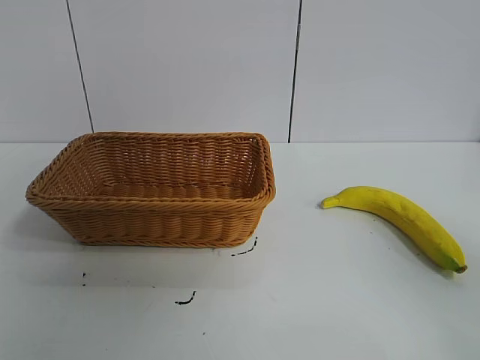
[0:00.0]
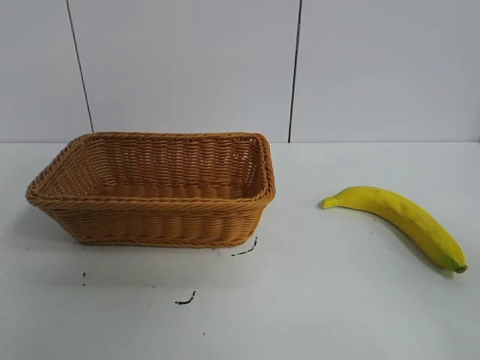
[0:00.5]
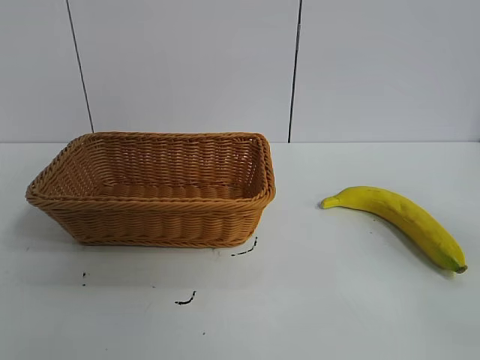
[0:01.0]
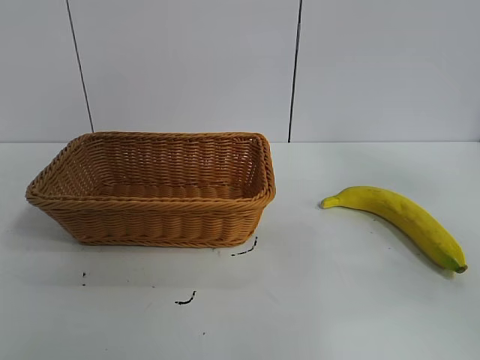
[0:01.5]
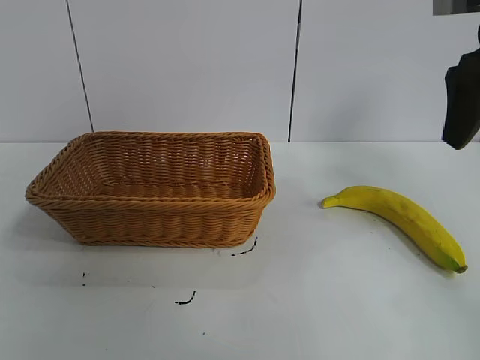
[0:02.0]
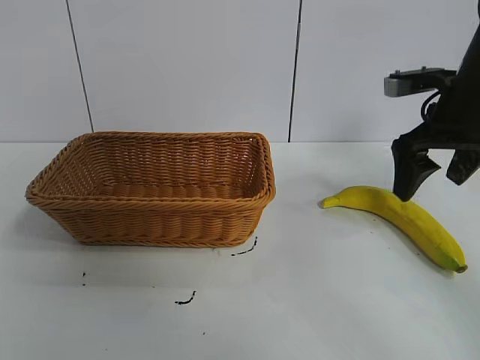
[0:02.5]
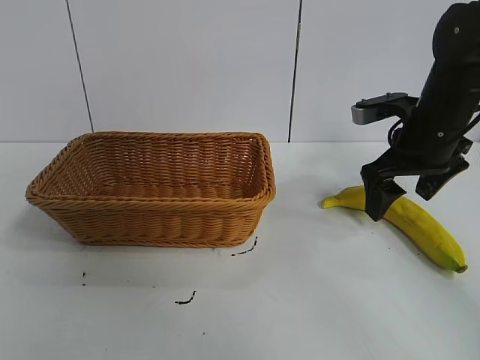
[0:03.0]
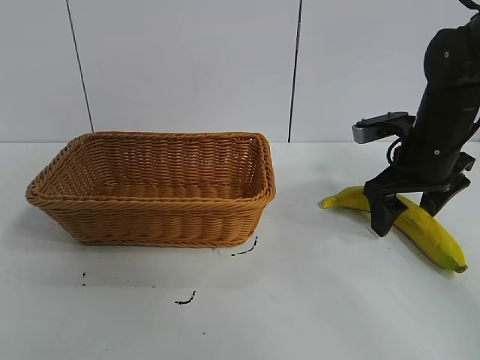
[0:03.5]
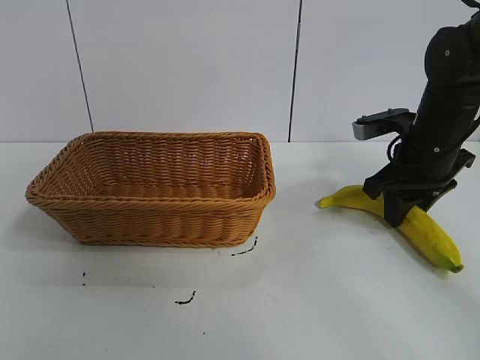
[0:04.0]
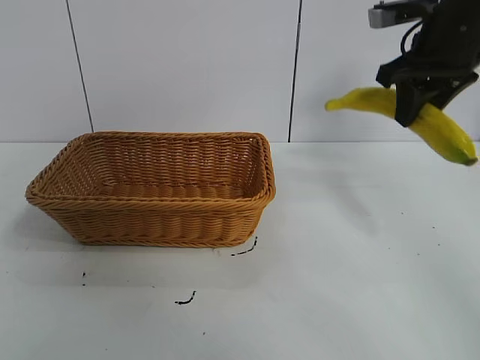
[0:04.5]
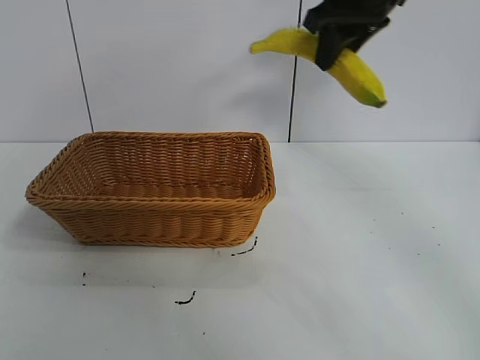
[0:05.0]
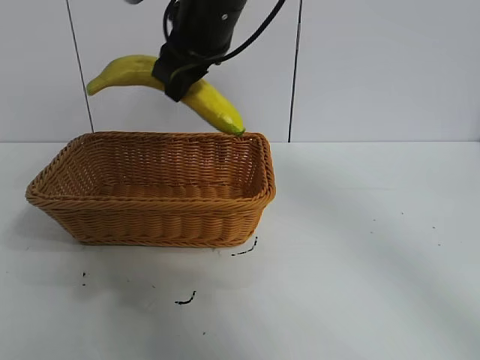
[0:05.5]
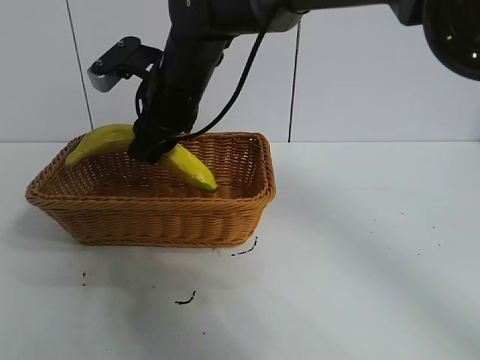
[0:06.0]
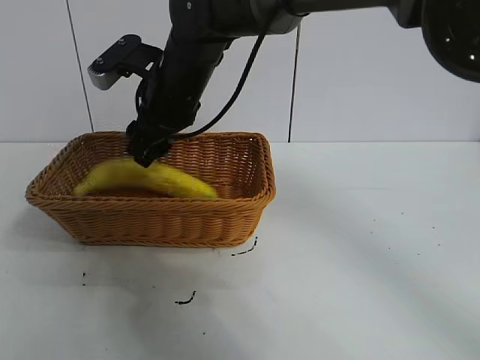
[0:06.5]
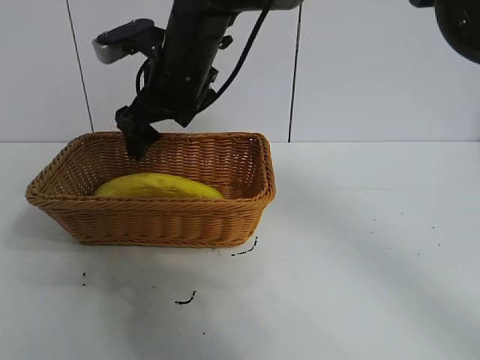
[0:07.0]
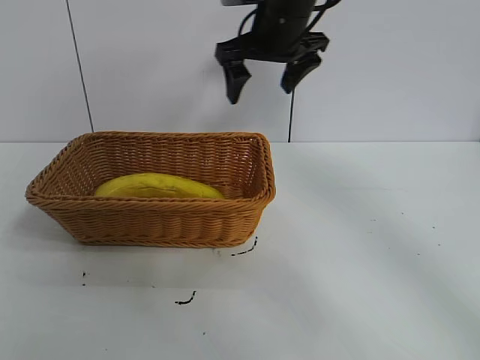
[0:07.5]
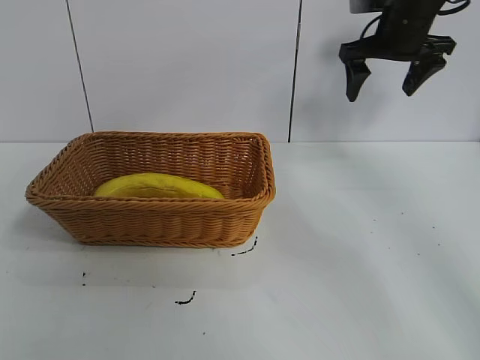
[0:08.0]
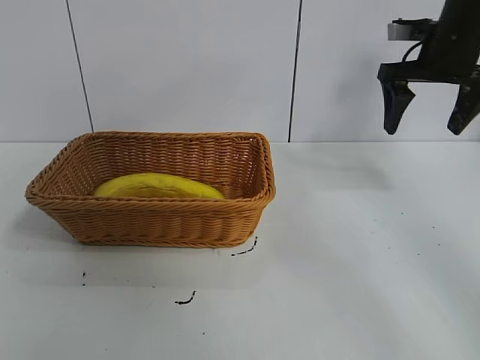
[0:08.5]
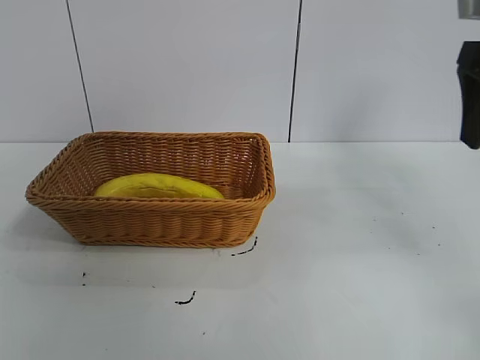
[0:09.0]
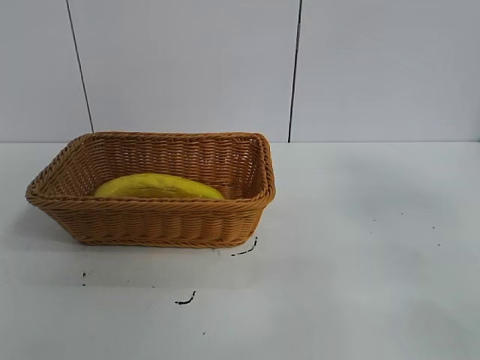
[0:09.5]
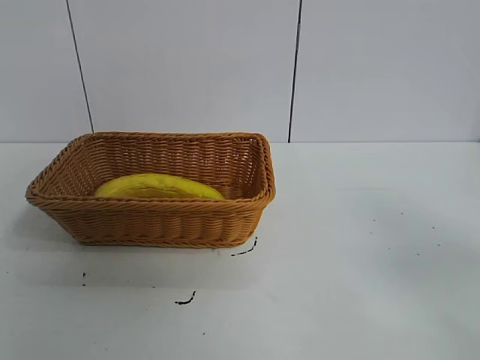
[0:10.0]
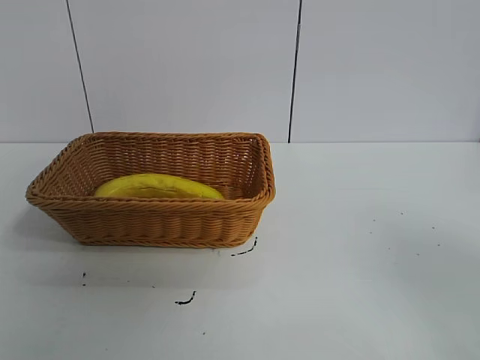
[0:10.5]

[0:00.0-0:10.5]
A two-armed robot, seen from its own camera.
Task of the whole recording: pick up the banana and put it into the basket.
Step, 0:01.0 to 0:03.5: Grasp the banana with right gripper.
Step, 0:04.0 to 0:06.5: Place the banana in the basket with right gripper.
